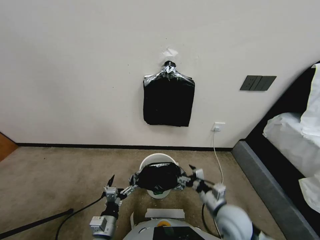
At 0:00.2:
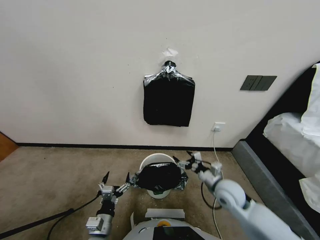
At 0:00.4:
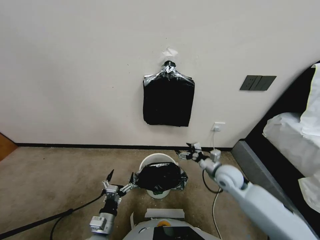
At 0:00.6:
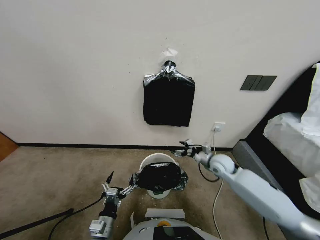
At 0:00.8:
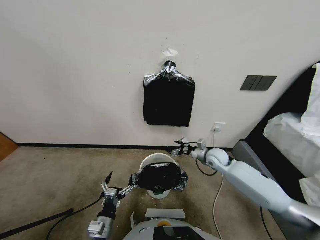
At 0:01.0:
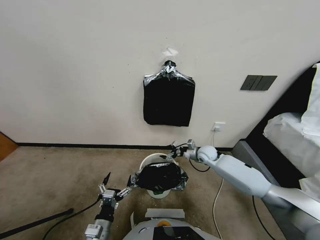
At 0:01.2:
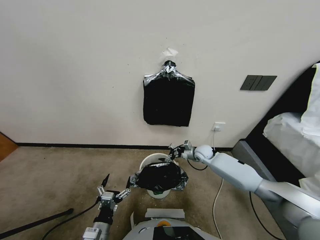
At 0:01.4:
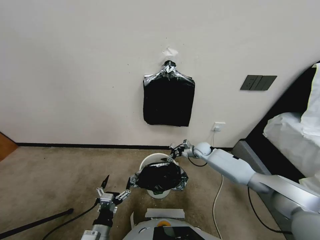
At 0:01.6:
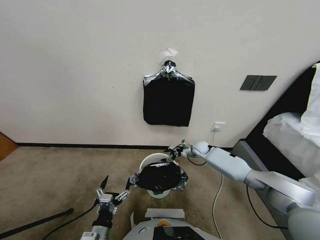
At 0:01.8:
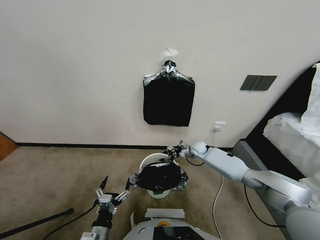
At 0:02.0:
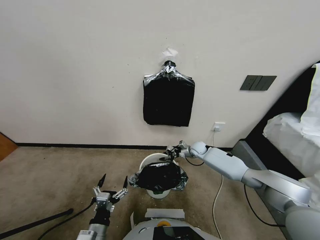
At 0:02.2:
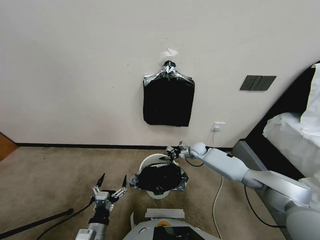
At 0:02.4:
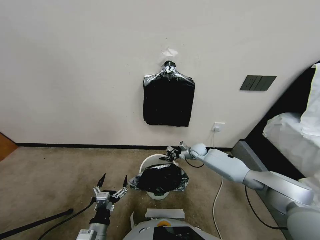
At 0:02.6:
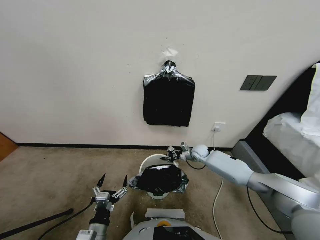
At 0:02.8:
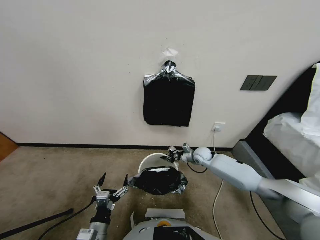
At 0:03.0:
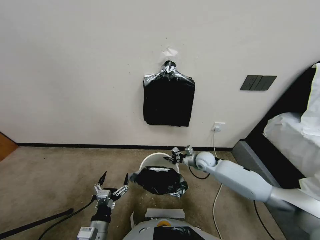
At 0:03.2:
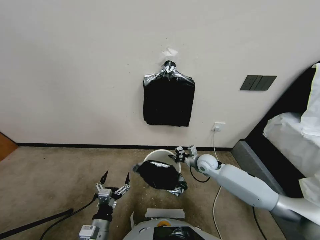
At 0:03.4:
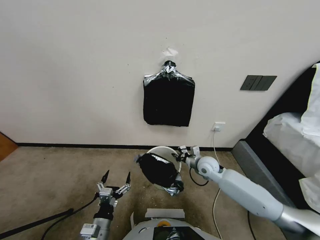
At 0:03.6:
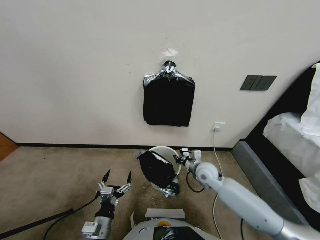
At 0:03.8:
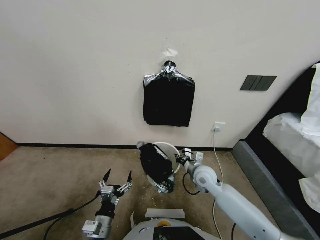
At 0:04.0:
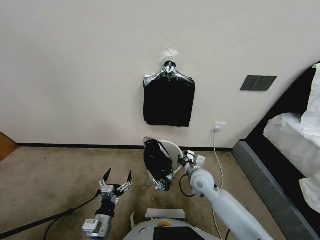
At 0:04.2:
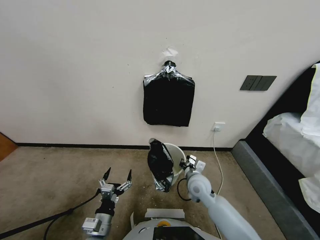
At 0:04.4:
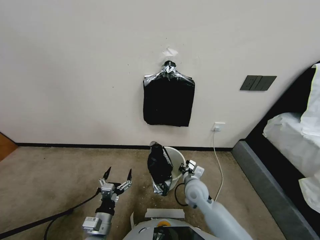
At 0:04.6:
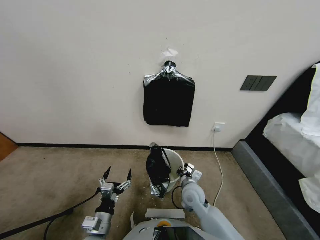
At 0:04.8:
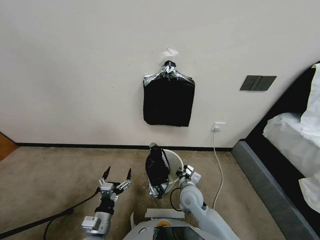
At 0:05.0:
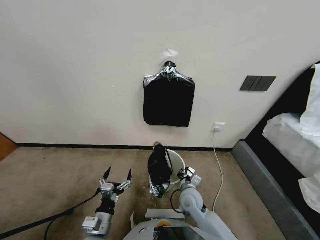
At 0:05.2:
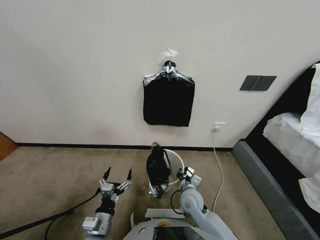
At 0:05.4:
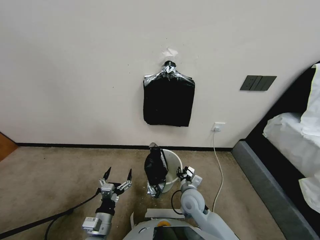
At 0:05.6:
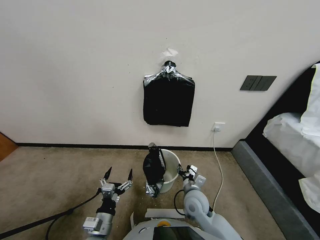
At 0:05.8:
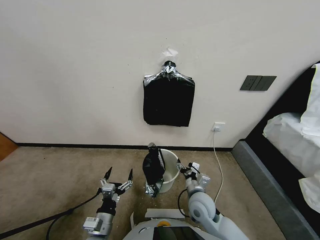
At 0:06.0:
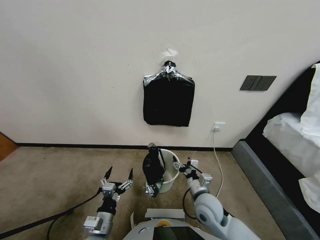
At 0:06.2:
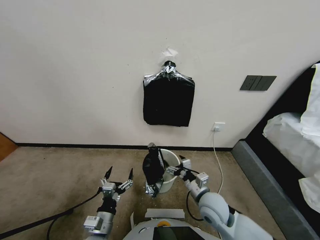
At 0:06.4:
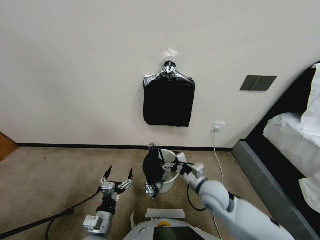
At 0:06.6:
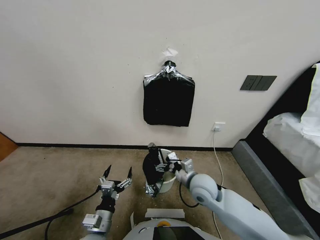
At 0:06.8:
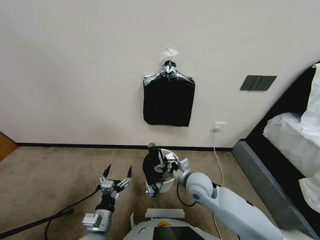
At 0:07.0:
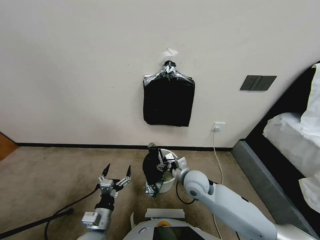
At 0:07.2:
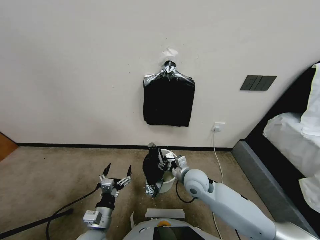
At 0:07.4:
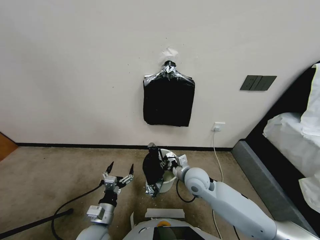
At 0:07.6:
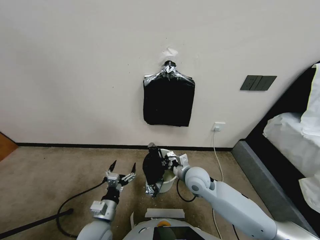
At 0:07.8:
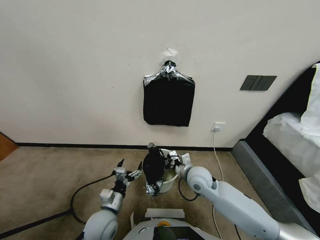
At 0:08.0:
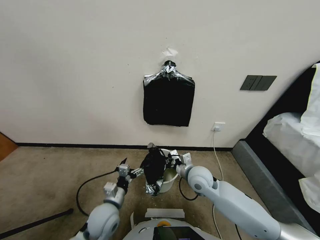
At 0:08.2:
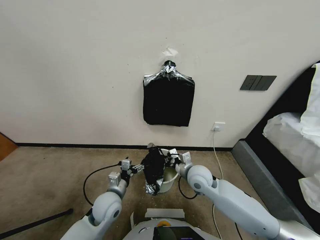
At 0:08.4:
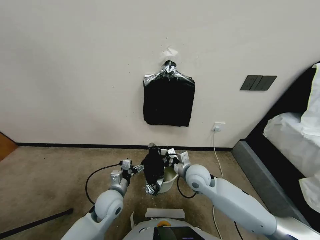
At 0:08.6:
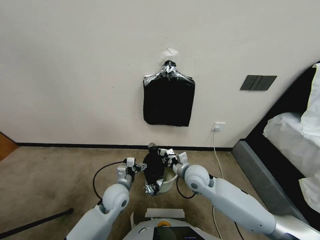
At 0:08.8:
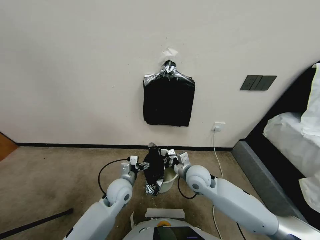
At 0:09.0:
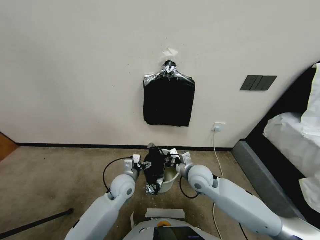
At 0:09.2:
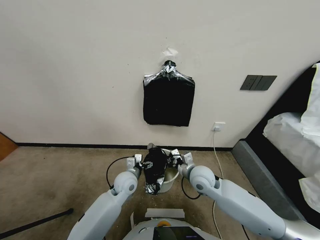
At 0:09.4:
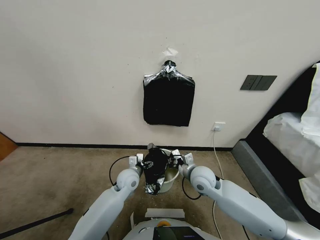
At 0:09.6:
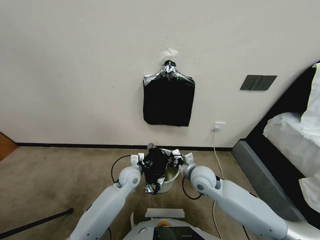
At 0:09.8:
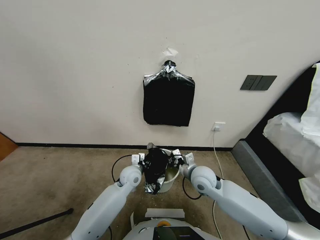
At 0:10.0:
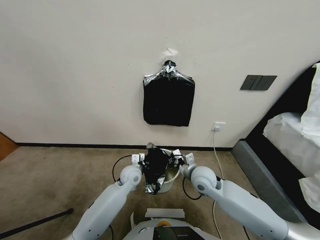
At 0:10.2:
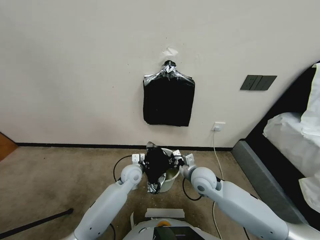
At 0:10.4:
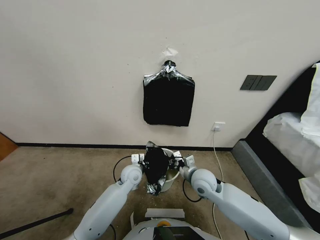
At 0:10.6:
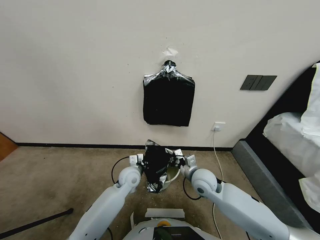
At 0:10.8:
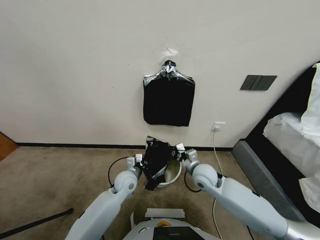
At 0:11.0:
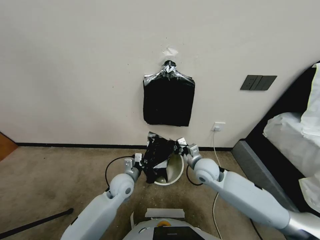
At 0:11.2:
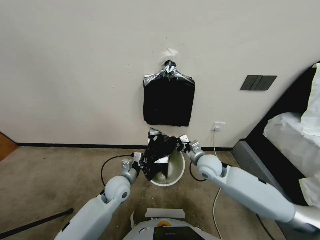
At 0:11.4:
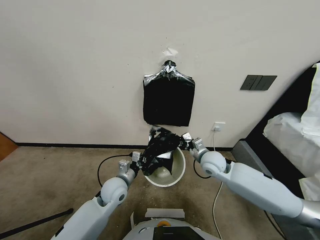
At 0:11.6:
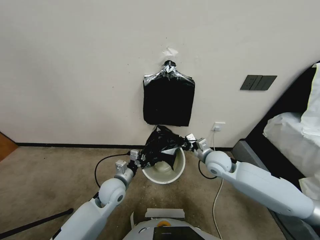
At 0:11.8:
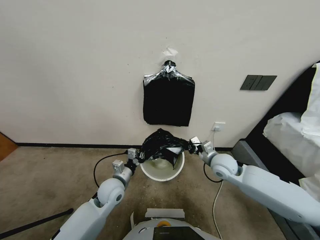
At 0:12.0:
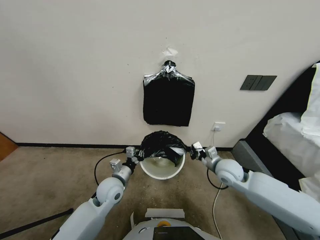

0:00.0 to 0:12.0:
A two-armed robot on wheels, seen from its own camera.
Task of the whole recording: Place a trash bag onto the trash bin.
0:00.0 to 0:01.6: The right gripper goes about 30 cm forward, and closes its fingers.
0:01.6 to 0:03.0: The right gripper is displaced backward by about 10 cm, and closes up.
0:03.0 to 0:04.4: The right gripper is displaced backward and to the left by roughly 15 cm.
0:04.4 to 0:06.0: The right gripper heads backward and upward, covering roughly 10 cm, and opens.
0:06.0 to 0:07.6: The left gripper goes roughly 5 cm forward. The right gripper shifts some 10 cm forward, and closes up.
0:07.6 to 0:09.0: The left gripper heads forward, covering about 15 cm.
0:09.0 to 0:10.4: The left gripper closes its fingers.
0:10.4 to 0:12.0: The left gripper travels backward and to the left by approximately 10 cm. The right gripper shifts roughly 10 cm to the right.

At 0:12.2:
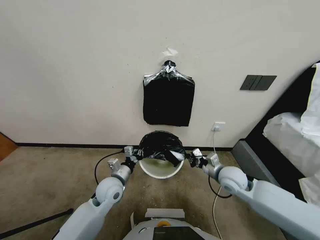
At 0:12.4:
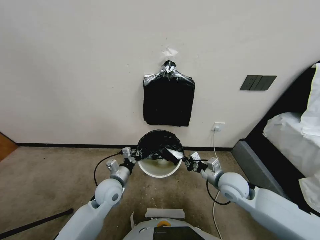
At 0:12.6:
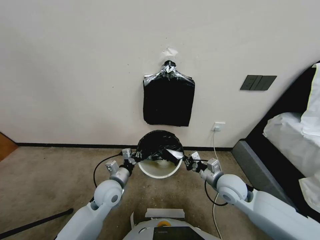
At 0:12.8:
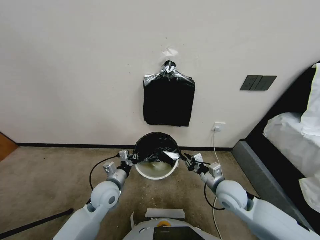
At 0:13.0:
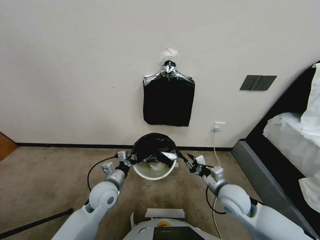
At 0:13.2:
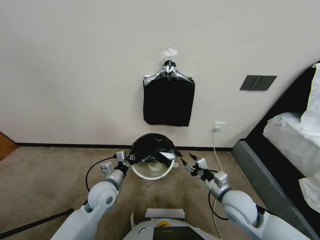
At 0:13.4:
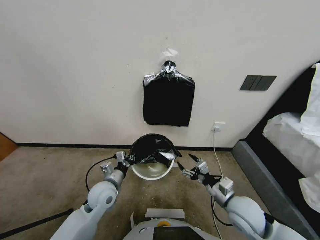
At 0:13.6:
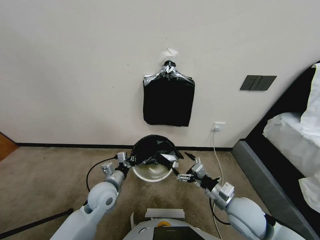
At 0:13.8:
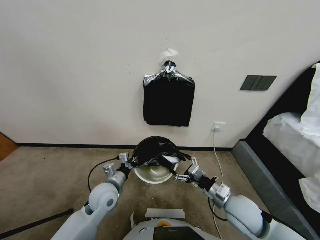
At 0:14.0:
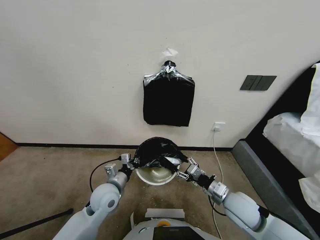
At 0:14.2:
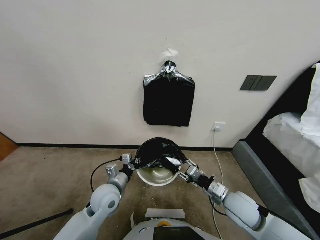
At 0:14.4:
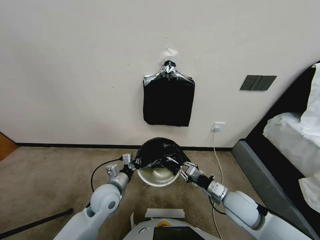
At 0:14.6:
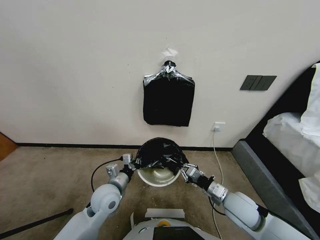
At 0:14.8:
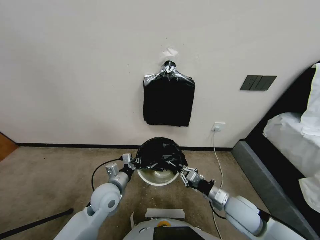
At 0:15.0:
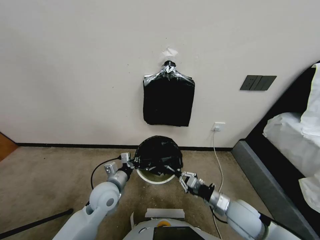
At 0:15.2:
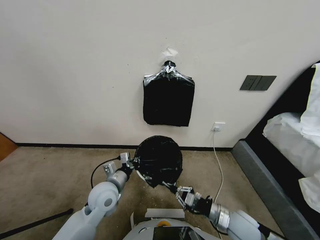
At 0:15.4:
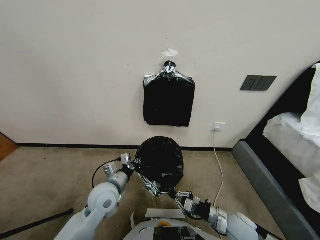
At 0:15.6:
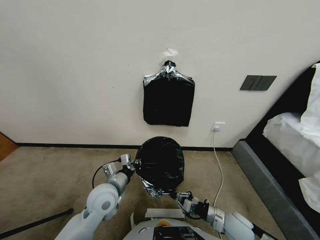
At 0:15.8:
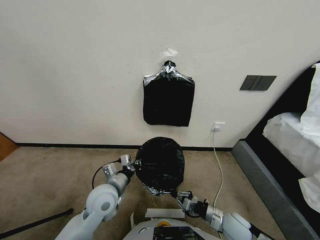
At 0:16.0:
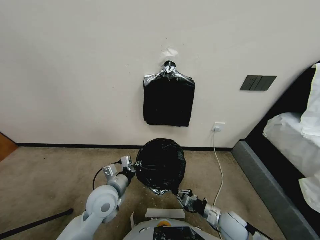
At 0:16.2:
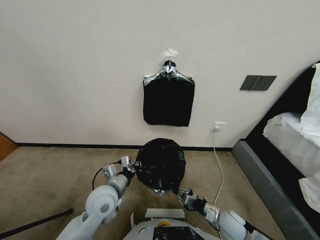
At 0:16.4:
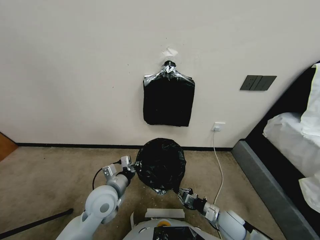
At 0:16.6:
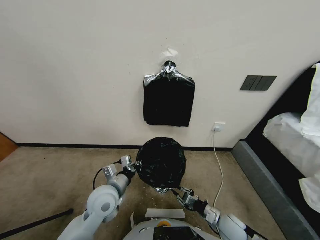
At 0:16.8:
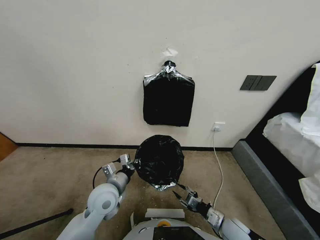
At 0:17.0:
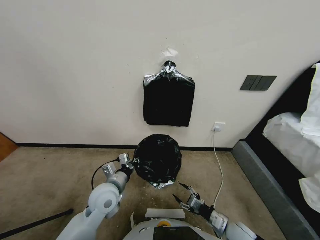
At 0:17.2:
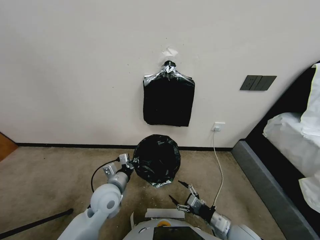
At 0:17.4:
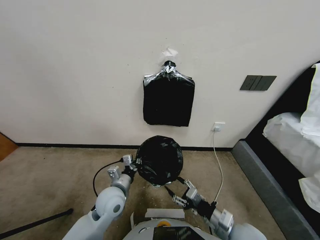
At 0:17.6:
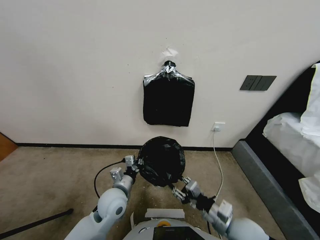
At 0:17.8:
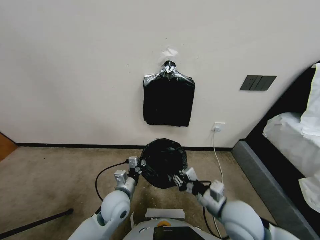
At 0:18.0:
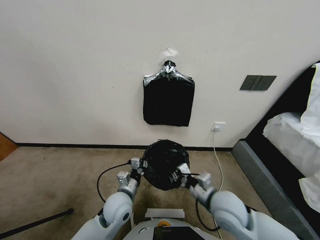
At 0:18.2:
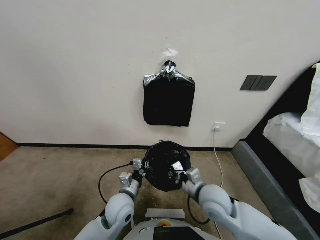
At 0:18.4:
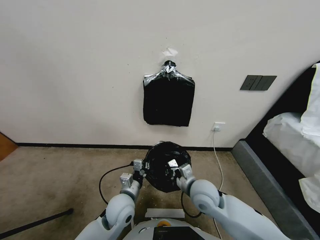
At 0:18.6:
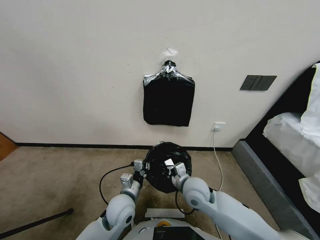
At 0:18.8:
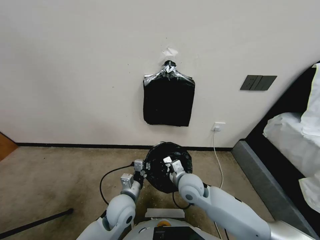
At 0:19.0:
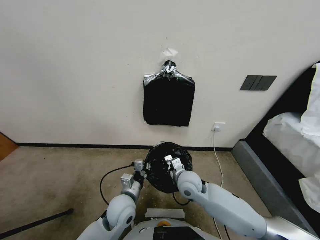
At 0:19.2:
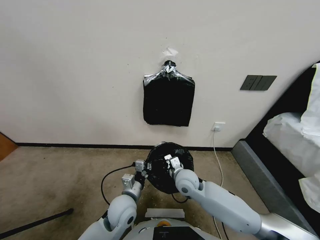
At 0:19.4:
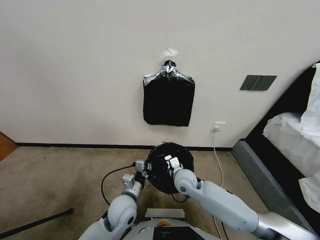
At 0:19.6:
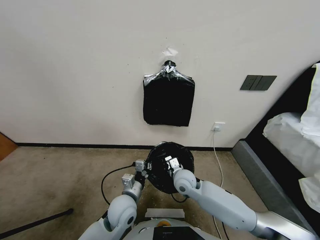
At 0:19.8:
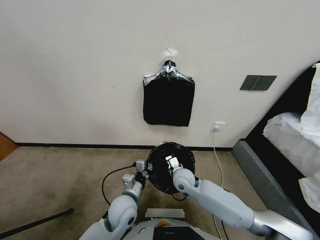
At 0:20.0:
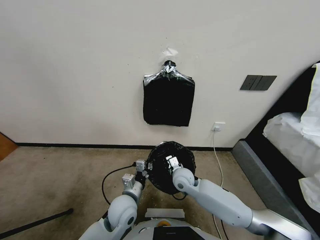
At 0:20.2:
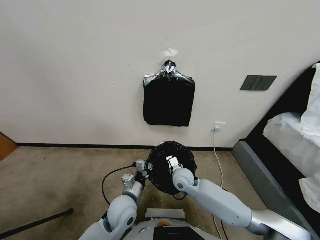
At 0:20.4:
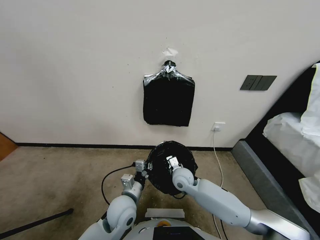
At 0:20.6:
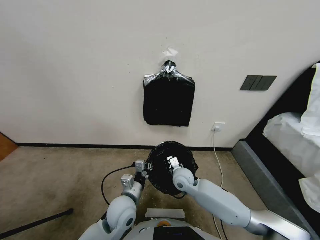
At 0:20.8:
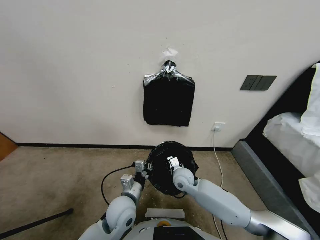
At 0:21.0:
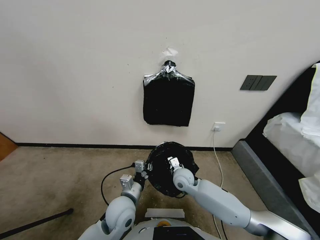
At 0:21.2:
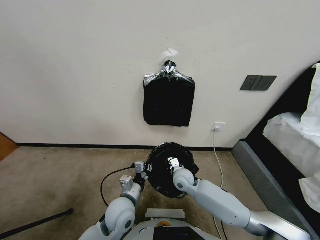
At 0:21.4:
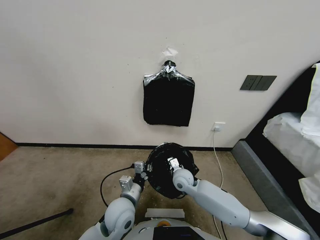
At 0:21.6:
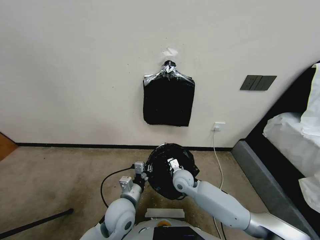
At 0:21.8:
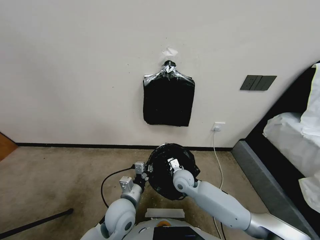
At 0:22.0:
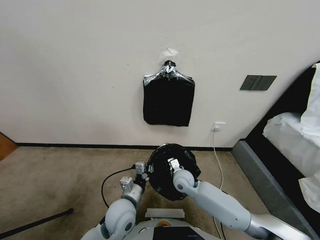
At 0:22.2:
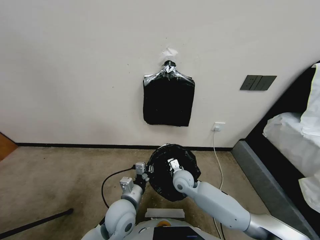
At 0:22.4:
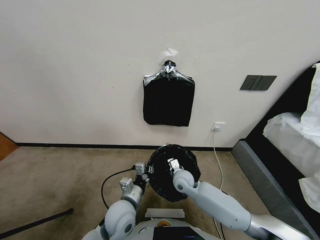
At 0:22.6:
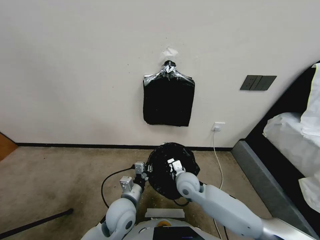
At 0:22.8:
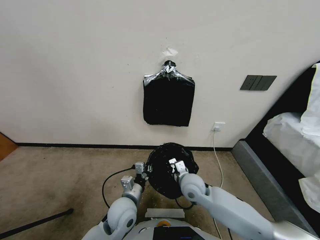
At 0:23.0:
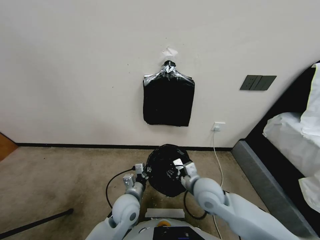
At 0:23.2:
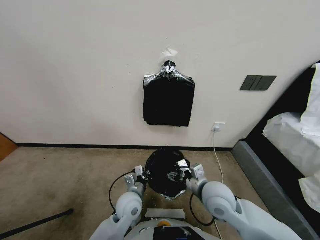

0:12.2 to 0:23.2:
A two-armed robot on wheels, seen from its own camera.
Task of the whole recording: Place a trash bag onto the trash bin.
0:12.2 to 0:13.8: The right gripper shifts some 10 cm backward, and opens up.
0:13.8 to 0:15.4: The right gripper moves downward, about 10 cm, and closes.
0:15.4 to 0:17.0: The right gripper opens its fingers.
0:17.0 to 0:18.4: The right gripper heads to the left, forward and upward, covering some 20 cm, and closes. Meanwhile the left gripper heads to the right, covering about 5 cm.
0:18.4 to 0:20.0: The right gripper moves forward and downward, about 10 cm.
0:20.0 to 0:21.6: The grippers move only a little.
0:21.6 to 0:23.2: The left gripper changes place by some 5 cm. The right gripper heads upward, backward and to the right, covering roughly 15 cm, and opens up.
